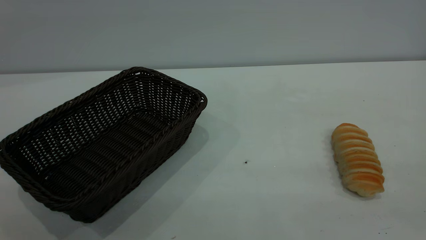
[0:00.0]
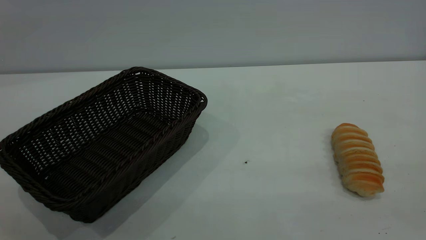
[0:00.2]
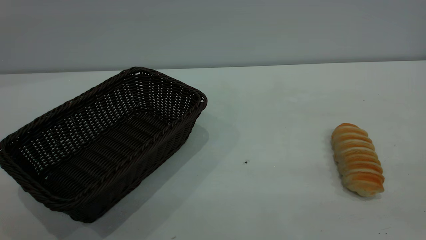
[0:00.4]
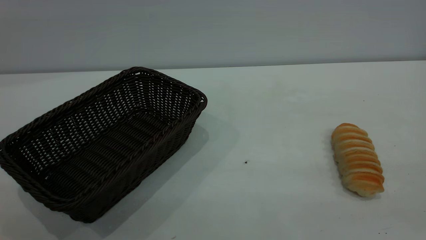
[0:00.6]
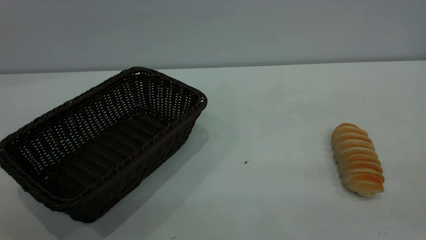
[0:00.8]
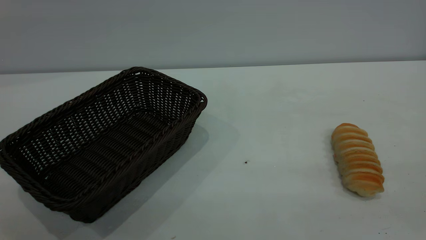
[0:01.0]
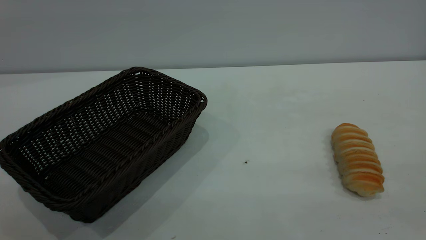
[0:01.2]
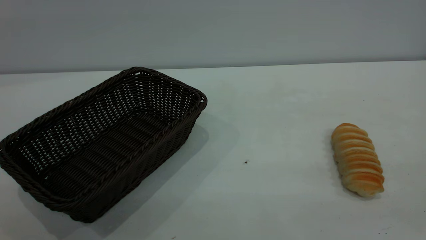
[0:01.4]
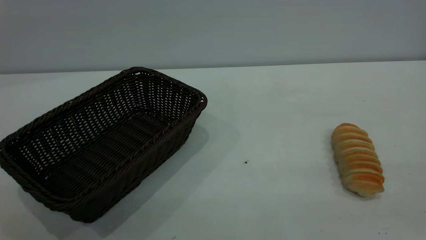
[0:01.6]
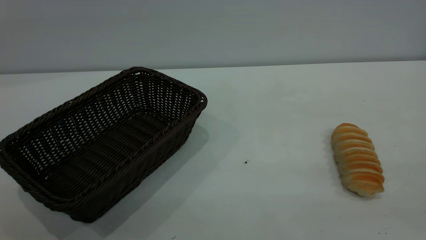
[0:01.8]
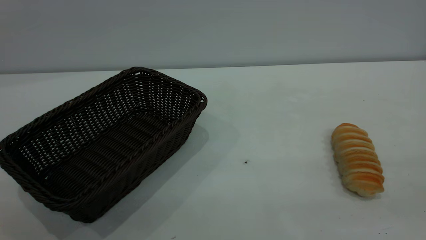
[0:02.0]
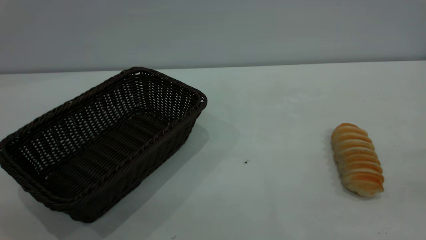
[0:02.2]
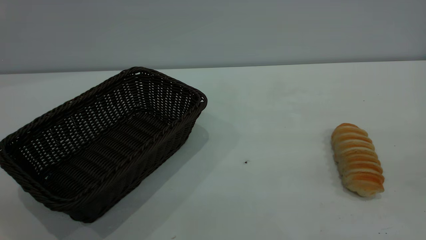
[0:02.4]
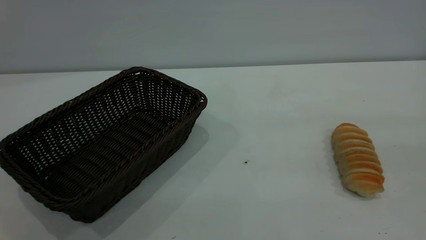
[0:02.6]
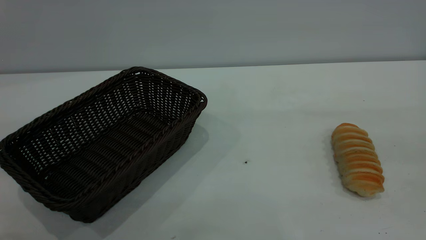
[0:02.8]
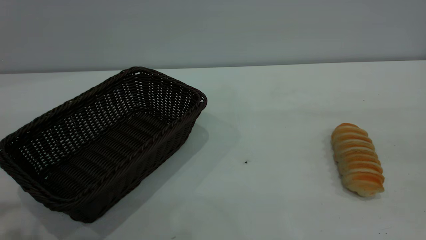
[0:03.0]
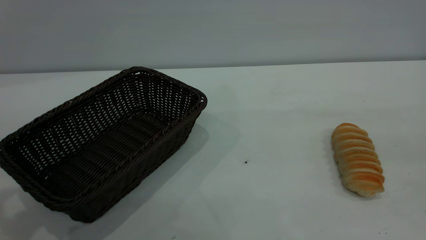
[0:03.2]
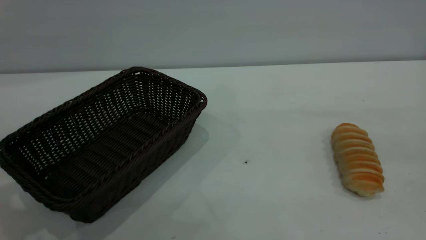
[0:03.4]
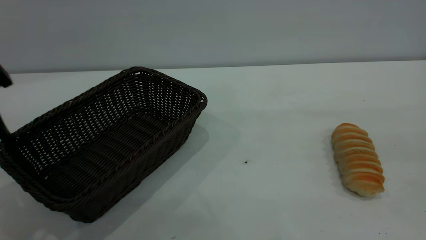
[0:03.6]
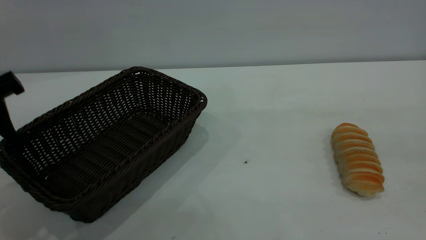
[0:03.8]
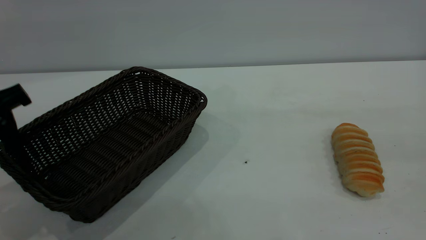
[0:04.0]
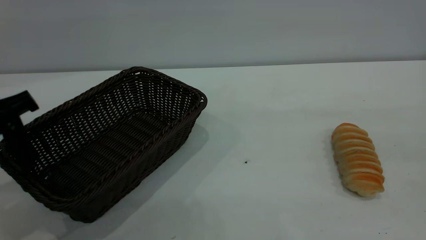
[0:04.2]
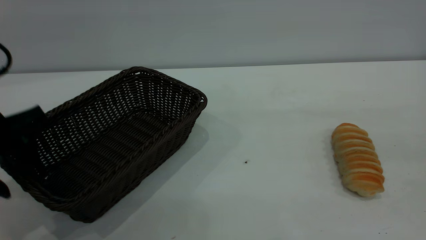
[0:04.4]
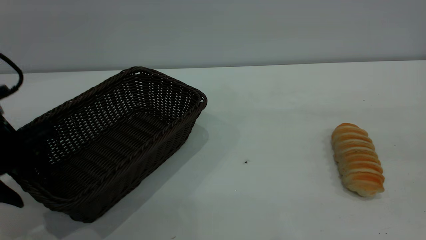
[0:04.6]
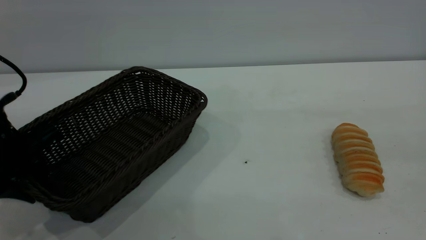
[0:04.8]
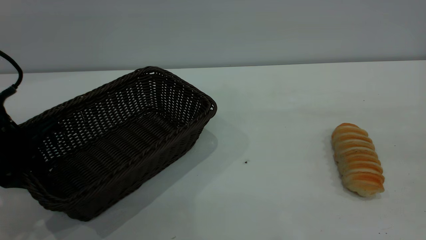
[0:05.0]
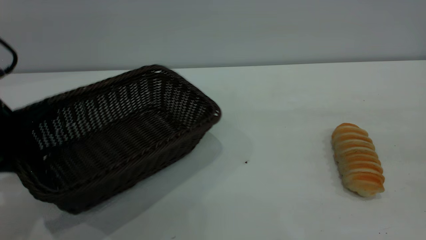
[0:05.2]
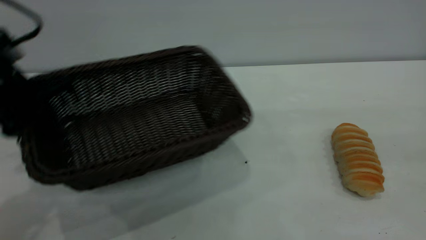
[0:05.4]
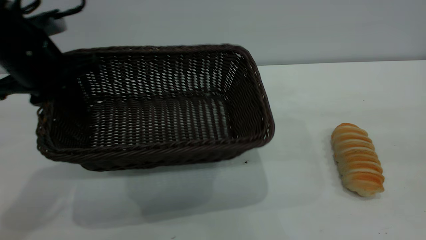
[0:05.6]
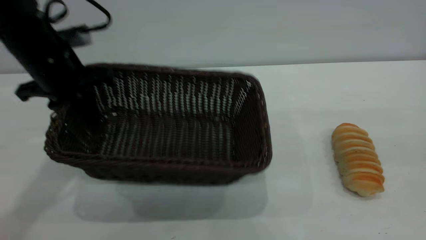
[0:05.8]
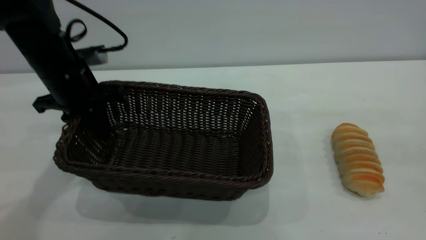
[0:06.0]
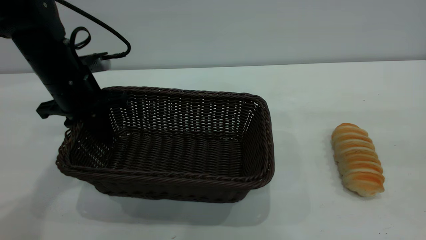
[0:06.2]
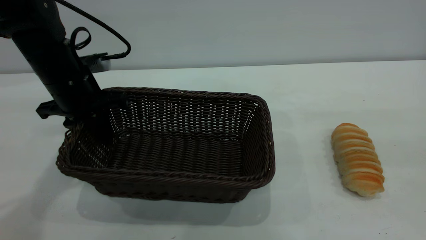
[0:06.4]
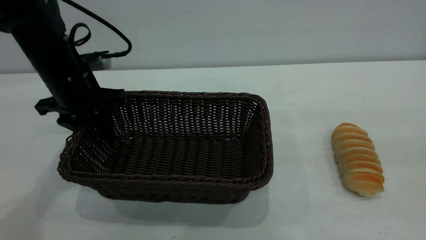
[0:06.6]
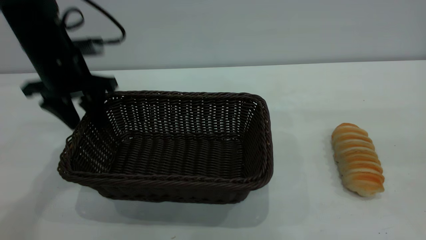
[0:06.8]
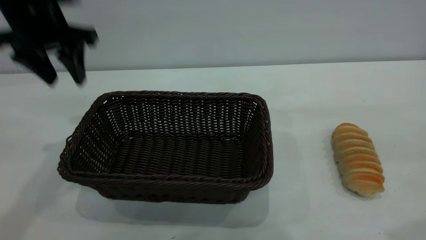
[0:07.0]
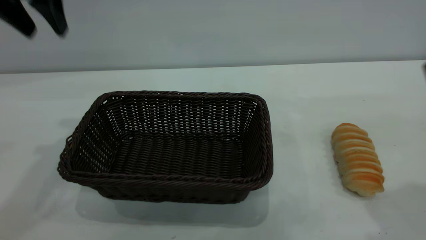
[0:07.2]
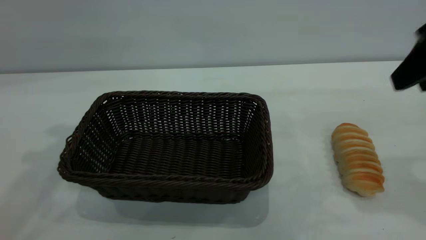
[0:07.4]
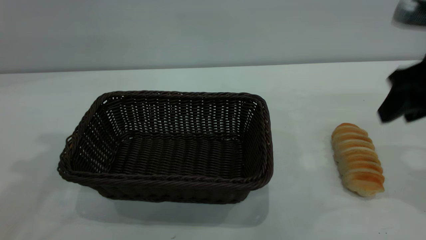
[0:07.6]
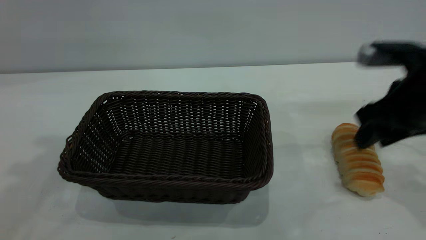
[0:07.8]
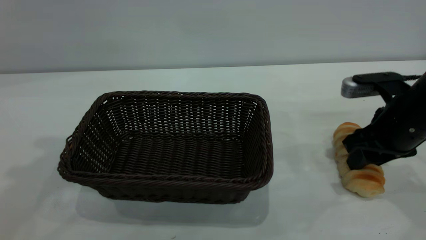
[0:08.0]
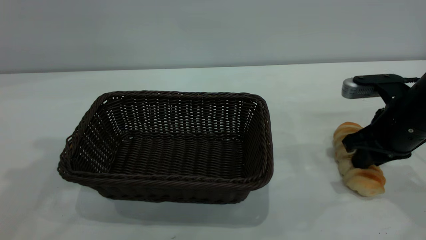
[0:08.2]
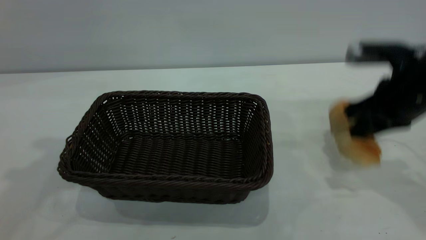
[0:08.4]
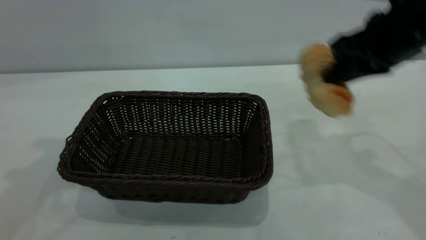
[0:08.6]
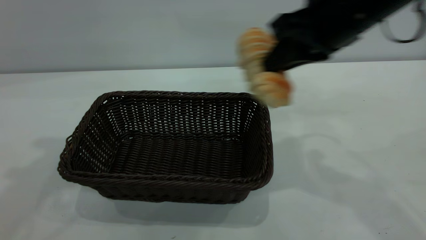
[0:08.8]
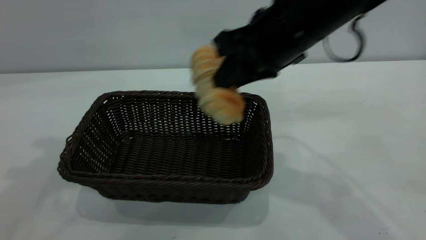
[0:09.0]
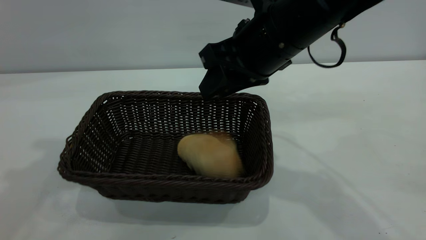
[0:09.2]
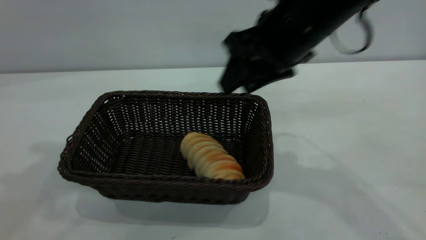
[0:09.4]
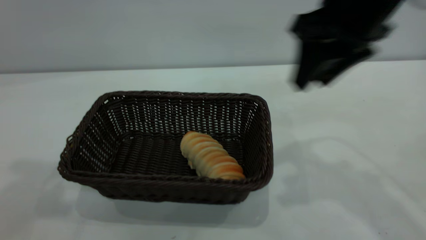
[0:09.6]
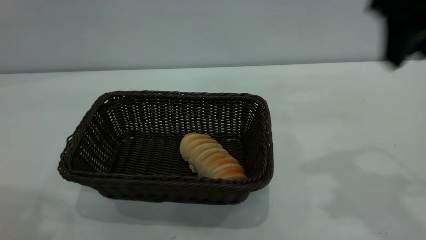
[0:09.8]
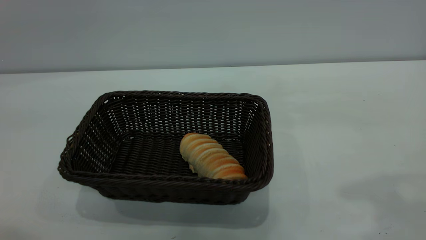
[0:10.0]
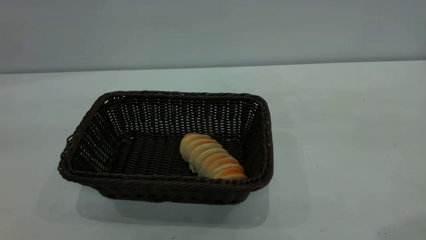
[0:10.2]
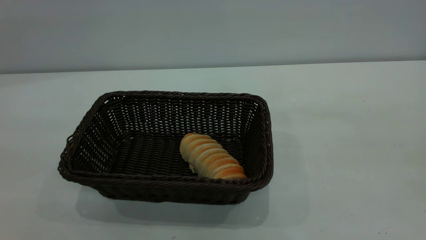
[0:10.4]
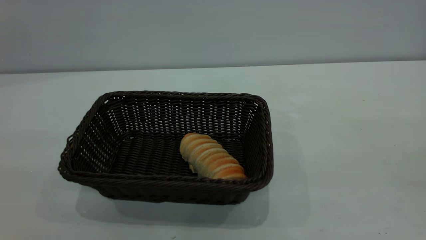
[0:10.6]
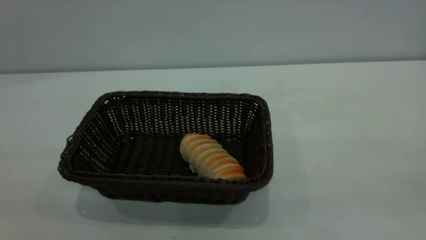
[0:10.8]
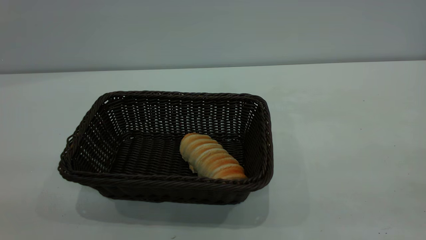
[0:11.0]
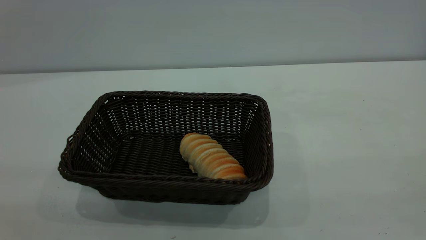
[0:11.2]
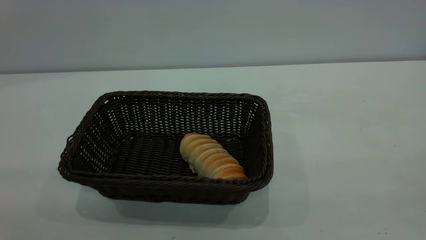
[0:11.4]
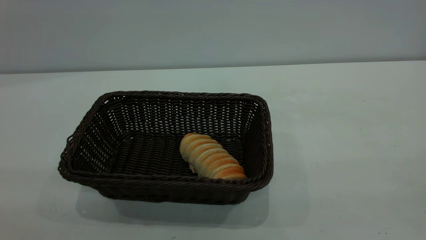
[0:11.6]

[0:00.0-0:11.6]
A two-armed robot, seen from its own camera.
Task of the whole recording: One hand grasps the black basket and places it in the middle of the table, while the other hand picks up the long bread and puts it into the black basket.
Step, 0:00.0 to 0:06.8: Move the basket to the center of view.
Step, 0:08.6 to 0:09.6: place the bread into the basket.
0:00.0 to 0:01.4: Neither gripper changes place.
0:02.8 to 0:04.4: The left gripper shifts about 20 cm downward and forward.
0:04.4 to 0:05.8: The left gripper travels forward and to the right by some 10 cm, and closes its fingers.
0:05.8 to 0:07.2: The right gripper shifts roughly 10 cm forward and downward; the left gripper shifts about 15 cm upward, and opens its fingers.
0:07.2 to 0:08.8: The left gripper goes roughly 10 cm upward and backward; the right gripper goes approximately 15 cm to the left and forward, reaches some 20 cm downward, then returns, and closes its fingers.
0:08.8 to 0:10.2: The right gripper is displaced backward, upward and to the right by about 25 cm, and opens. Meanwhile the left gripper shifts roughly 20 cm backward.

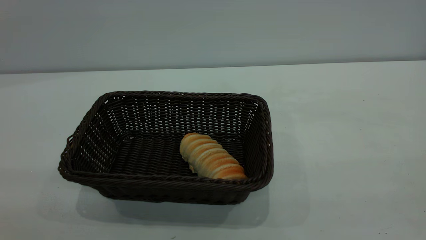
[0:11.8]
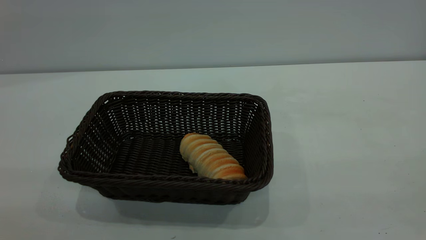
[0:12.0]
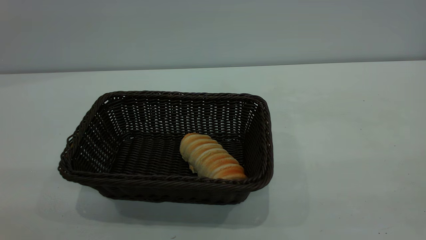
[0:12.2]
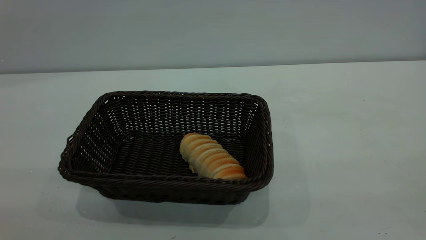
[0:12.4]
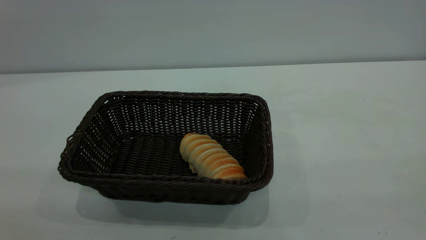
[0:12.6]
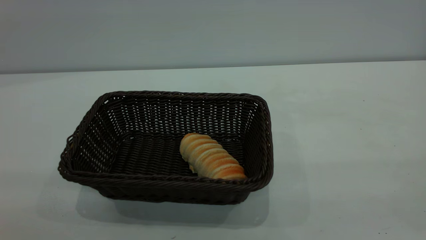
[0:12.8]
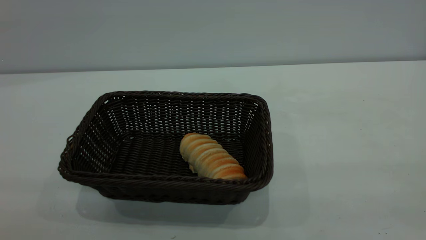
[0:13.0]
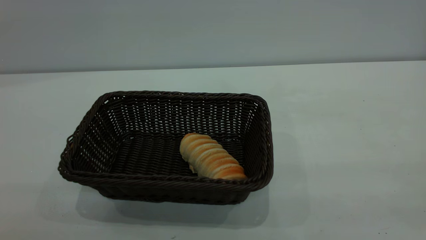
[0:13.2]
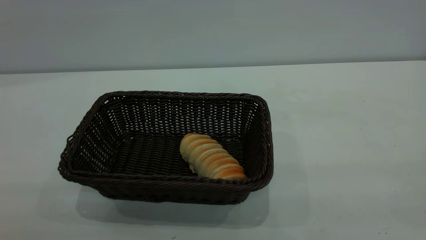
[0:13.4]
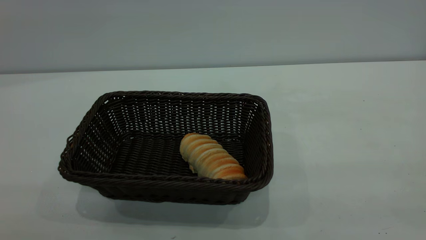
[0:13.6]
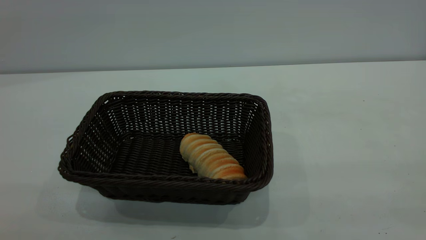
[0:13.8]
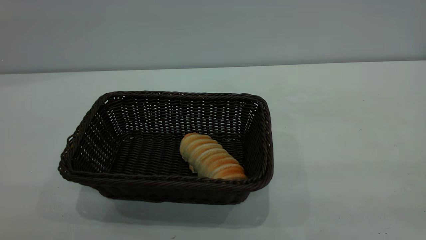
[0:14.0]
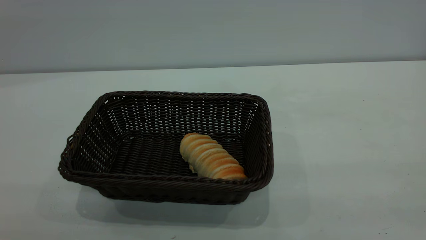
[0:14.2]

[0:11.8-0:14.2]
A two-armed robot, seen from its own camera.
Task of the whole recording: One hand grasps the black basket and places it in the middle of the table, while the other hand picks up the long bread and puts it into the black basket.
0:13.0 to 0:14.2: Both grippers stay put.
